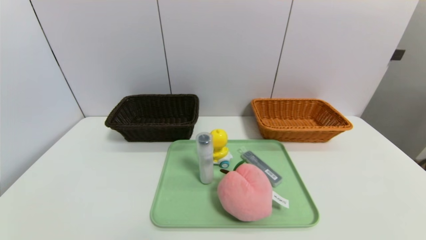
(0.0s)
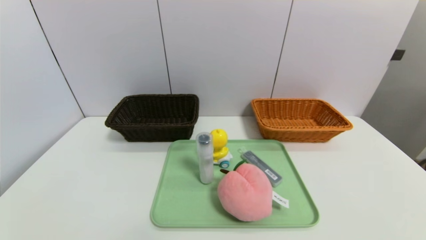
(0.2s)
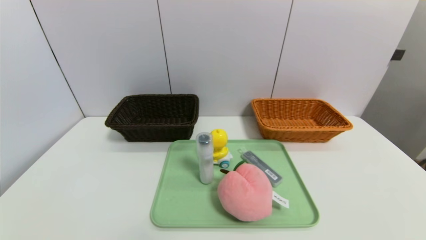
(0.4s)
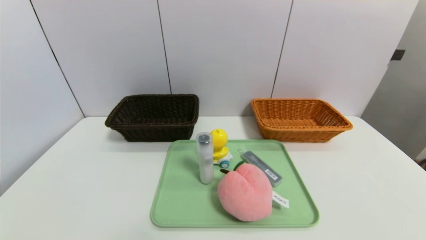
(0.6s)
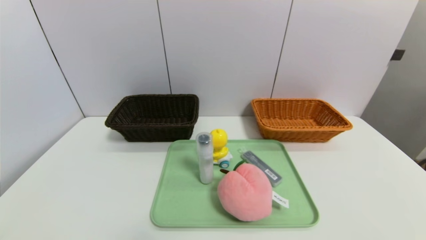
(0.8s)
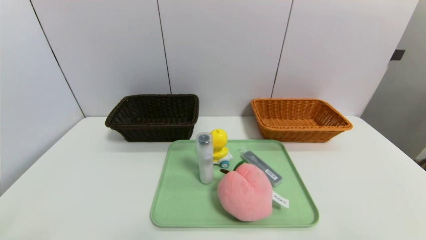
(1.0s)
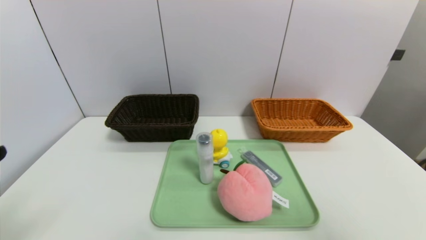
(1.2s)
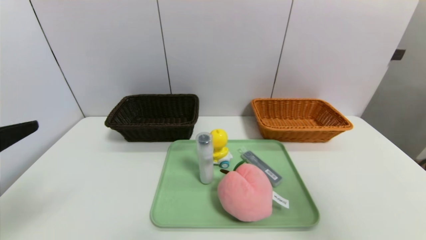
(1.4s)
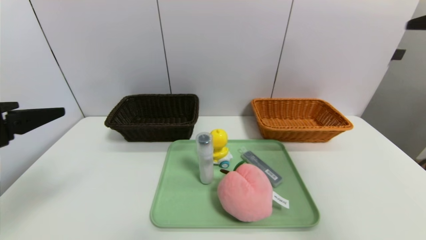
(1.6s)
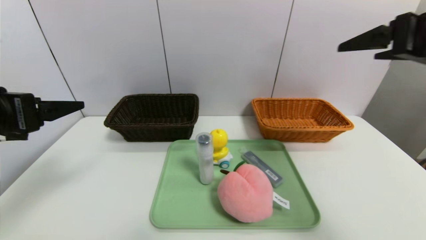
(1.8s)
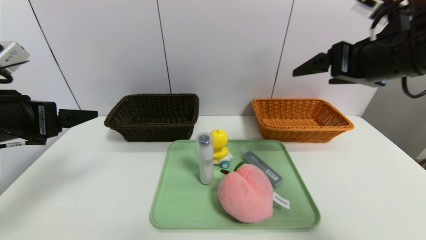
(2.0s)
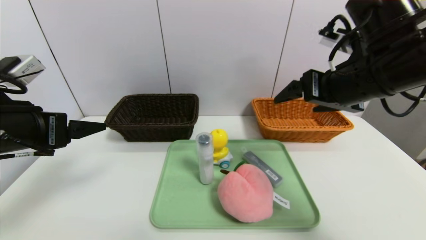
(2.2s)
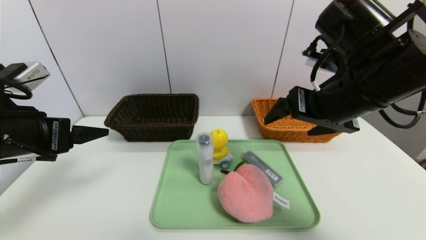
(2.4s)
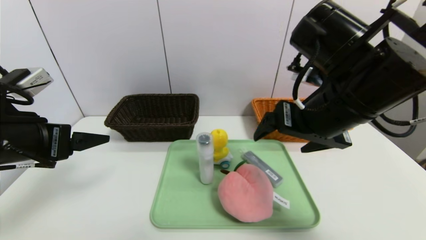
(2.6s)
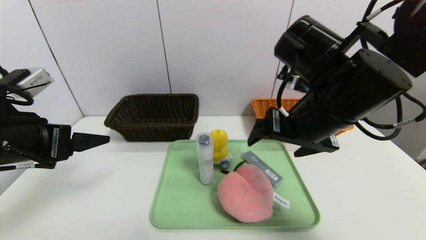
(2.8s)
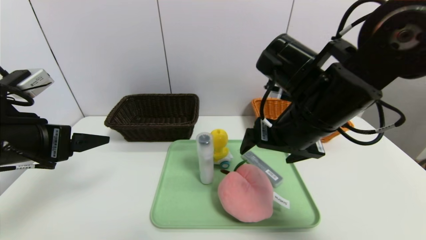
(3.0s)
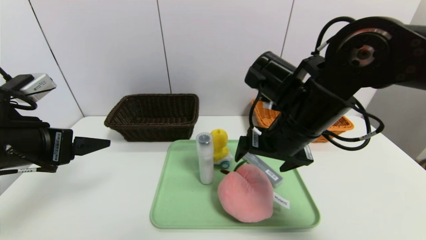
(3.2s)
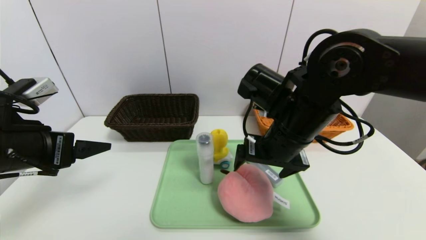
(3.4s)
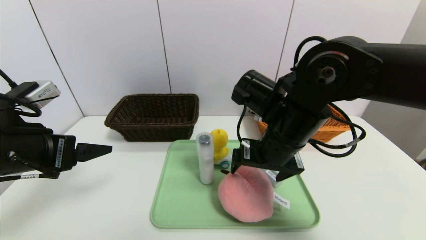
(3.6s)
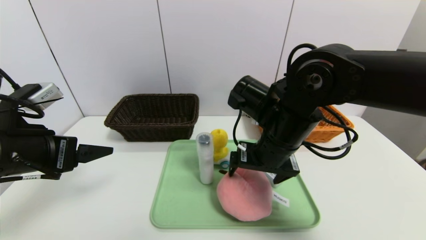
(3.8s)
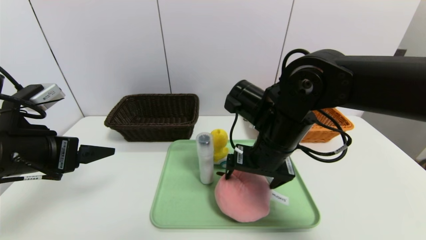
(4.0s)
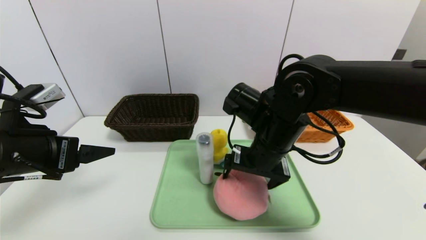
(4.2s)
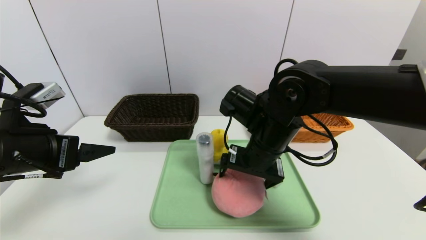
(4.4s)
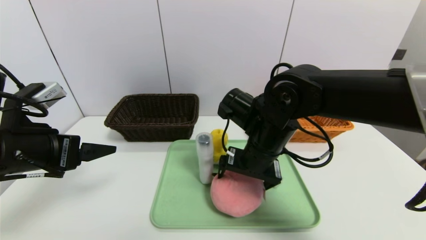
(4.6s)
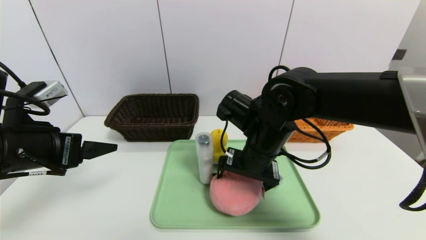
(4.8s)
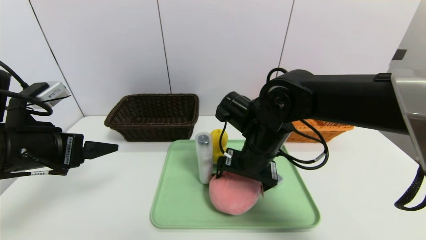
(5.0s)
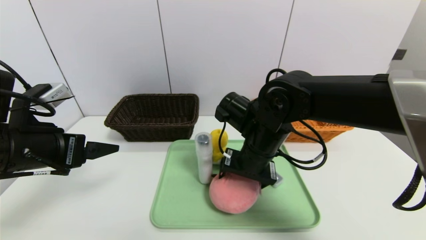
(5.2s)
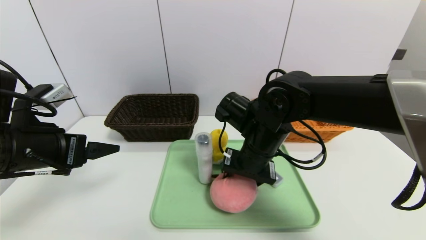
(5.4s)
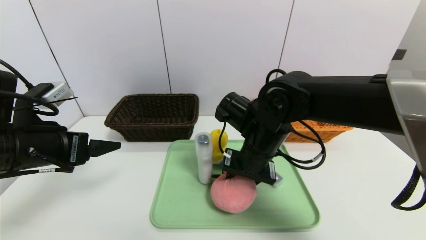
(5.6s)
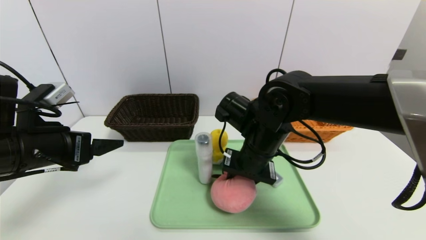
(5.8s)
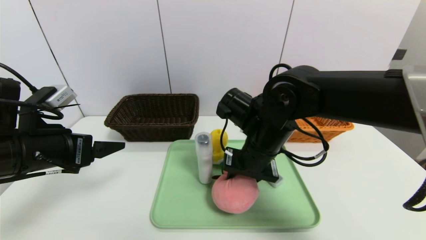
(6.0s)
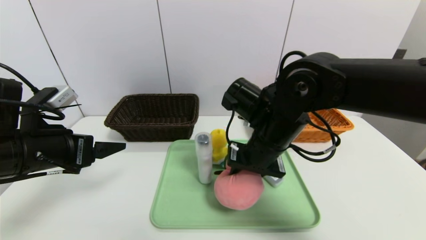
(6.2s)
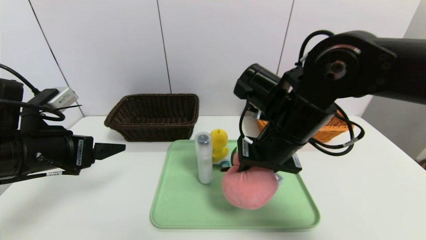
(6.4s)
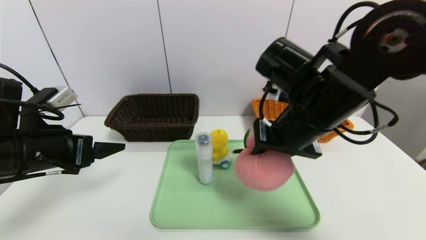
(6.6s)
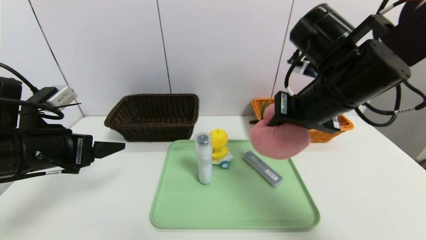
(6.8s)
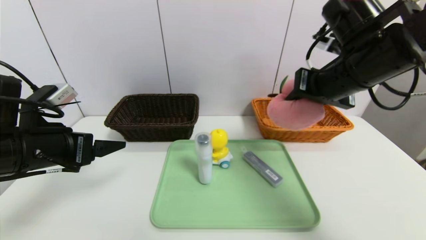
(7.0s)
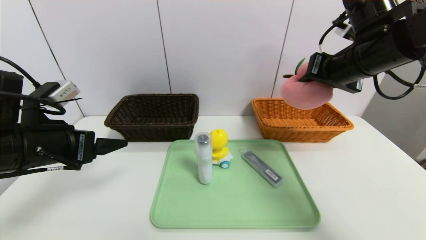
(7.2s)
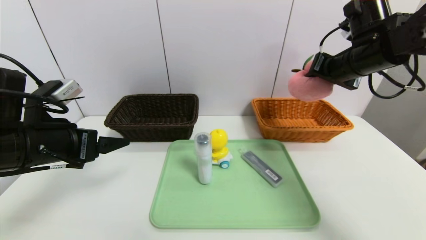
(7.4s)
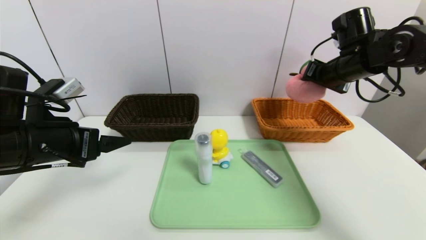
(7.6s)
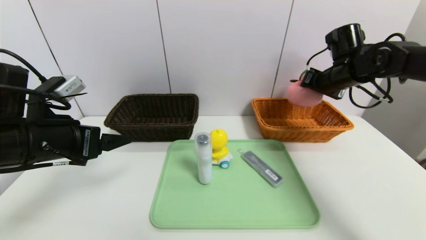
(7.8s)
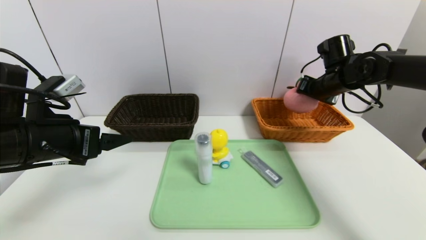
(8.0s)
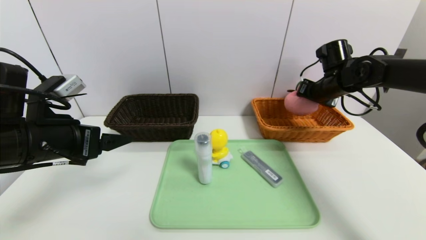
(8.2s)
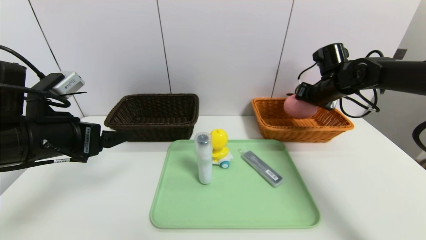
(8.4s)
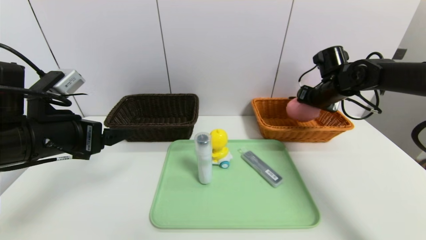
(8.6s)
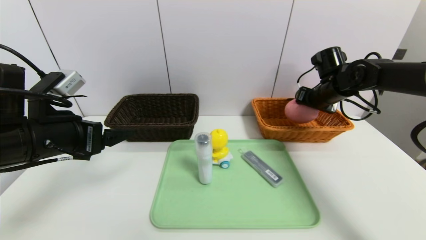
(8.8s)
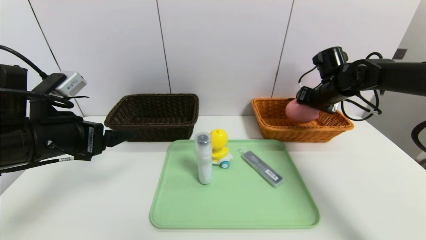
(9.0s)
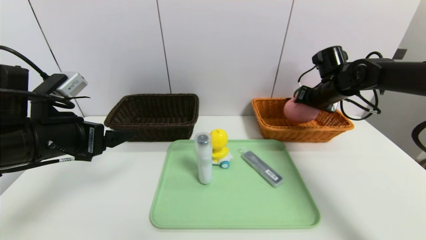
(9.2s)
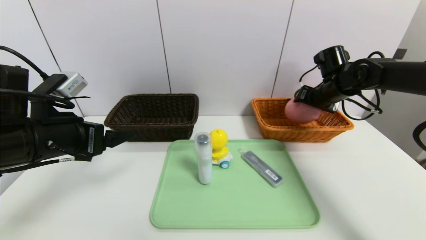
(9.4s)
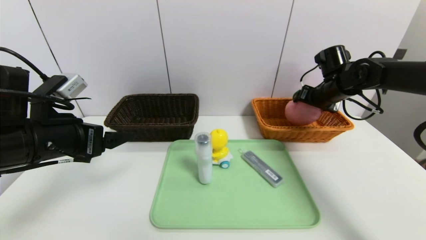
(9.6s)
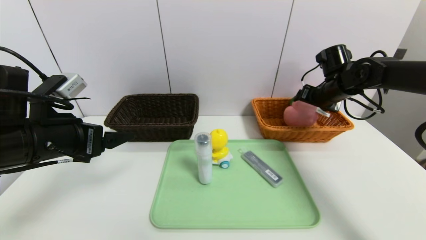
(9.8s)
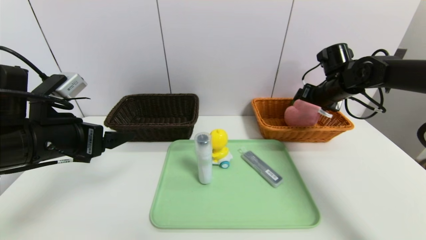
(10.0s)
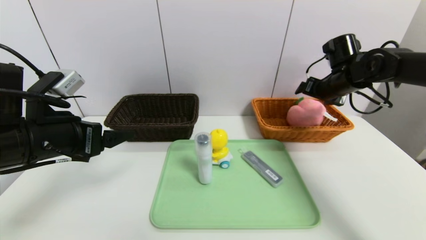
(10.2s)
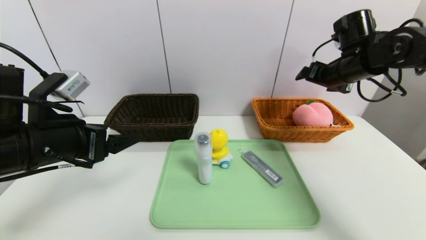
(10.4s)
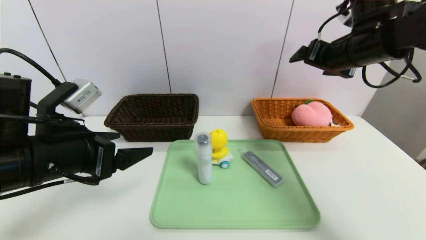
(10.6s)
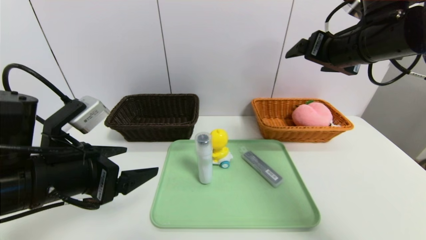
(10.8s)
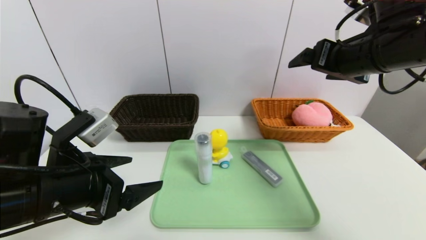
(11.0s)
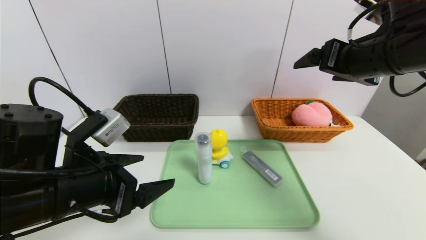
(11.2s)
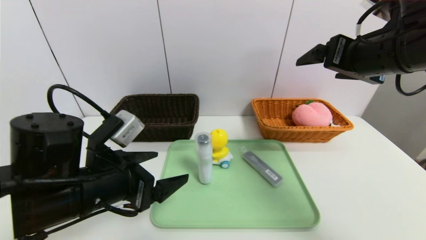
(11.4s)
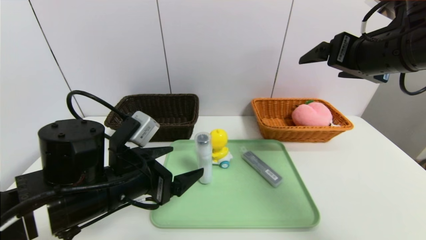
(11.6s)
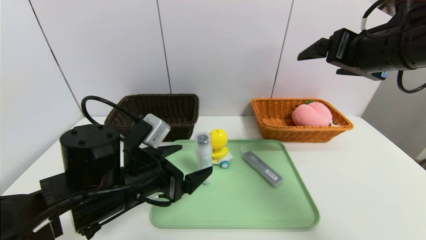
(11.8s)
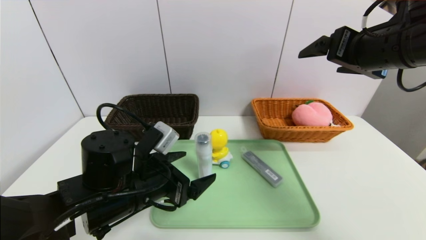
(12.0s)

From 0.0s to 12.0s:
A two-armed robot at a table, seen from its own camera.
Task of the whole recording: place the food in the right basket with the right gripper, and place the non food items in the left basket with the left gripper.
Step, from 0.0s to 10.4s: Grasp the peach doll and put it in the right basket.
From 0.0s to 1.6s: The two grippers go some 30 cm upward and forward.
From 1.6s to 3.0s: The left gripper changes place by some 5 cm, while the right gripper moves to the left, downward and forward, about 25 cm.
From 3.0s to 4.4s: The right gripper moves downward, about 5 cm.
From 4.4s to 6.0s: The right gripper closes its fingers.
From 6.0s to 7.6s: The right gripper shifts some 25 cm to the right, forward and upward.
From 7.6s to 9.0s: The right gripper is displaced downward by approximately 5 cm.
From 9.0s to 10.4s: The right gripper goes approximately 5 cm upward, and opens its fingers.
From 10.4s to 12.0s: The left gripper travels to the right and downward by approximately 15 cm. The right gripper heads backward and upward, covering approximately 15 cm.

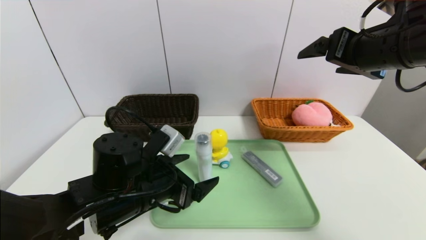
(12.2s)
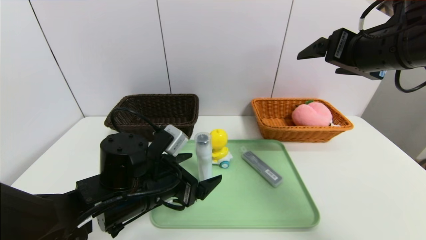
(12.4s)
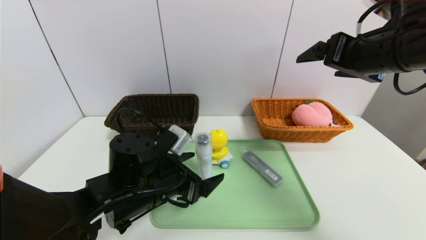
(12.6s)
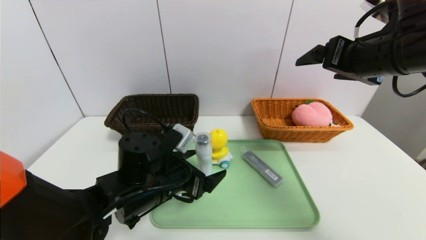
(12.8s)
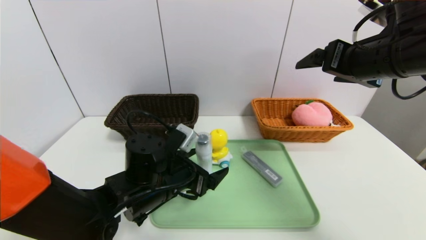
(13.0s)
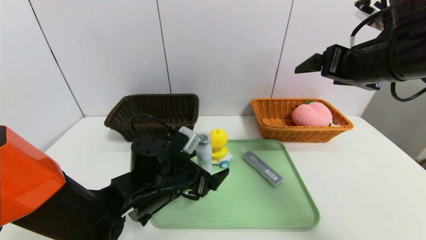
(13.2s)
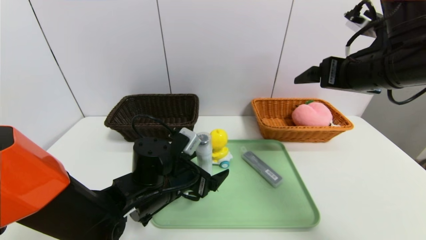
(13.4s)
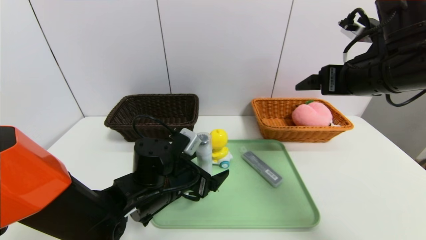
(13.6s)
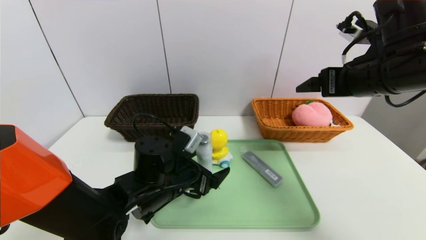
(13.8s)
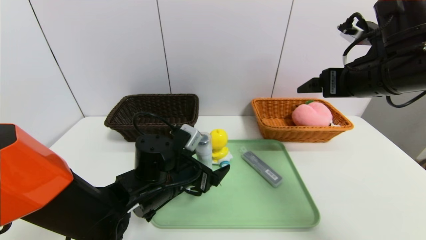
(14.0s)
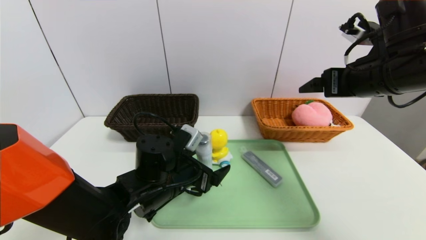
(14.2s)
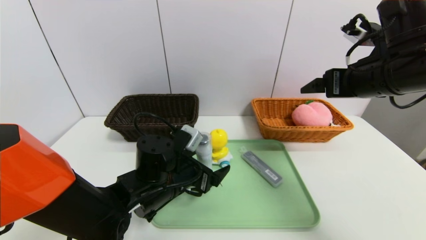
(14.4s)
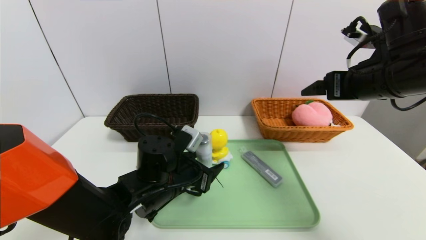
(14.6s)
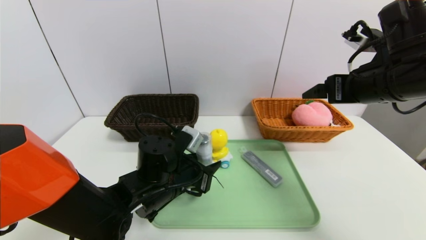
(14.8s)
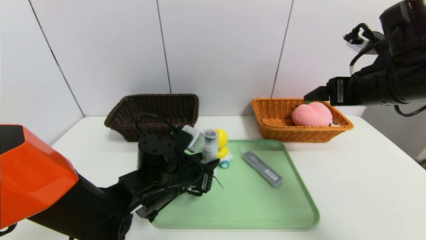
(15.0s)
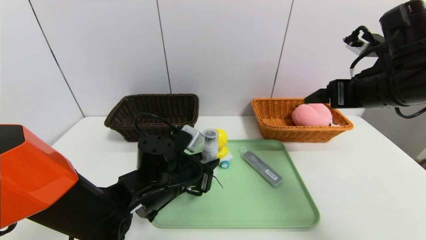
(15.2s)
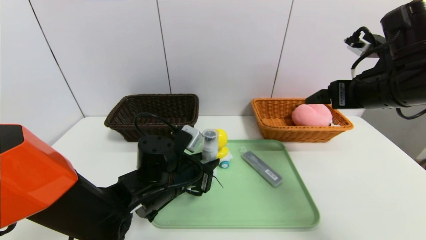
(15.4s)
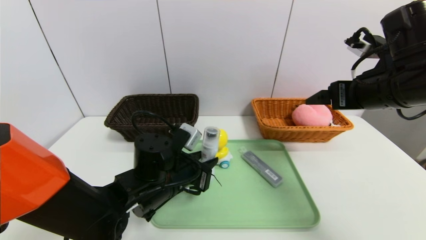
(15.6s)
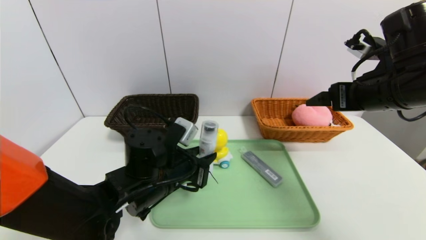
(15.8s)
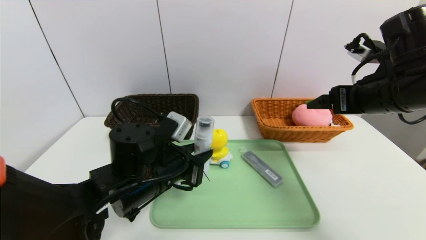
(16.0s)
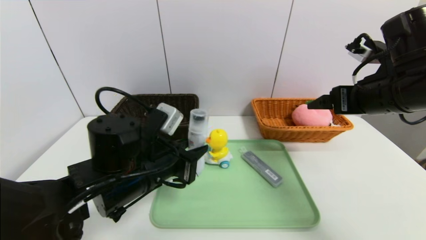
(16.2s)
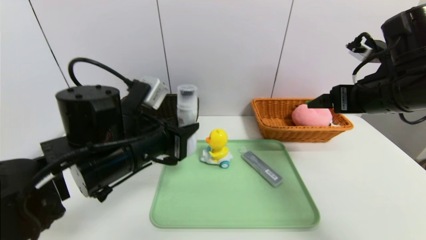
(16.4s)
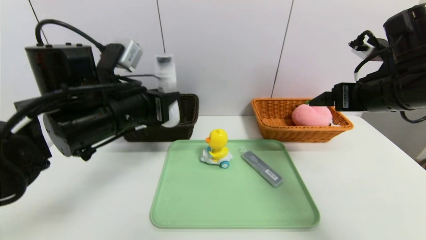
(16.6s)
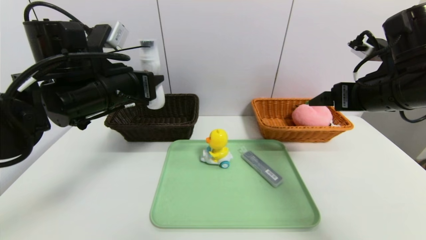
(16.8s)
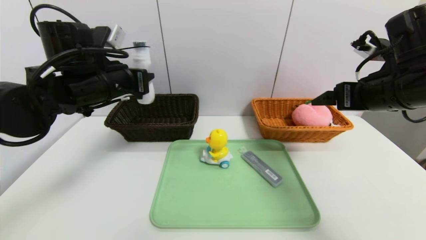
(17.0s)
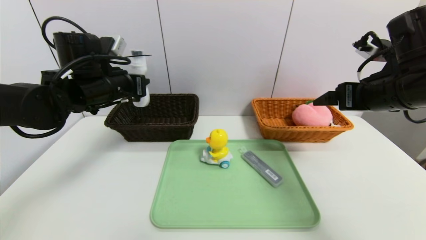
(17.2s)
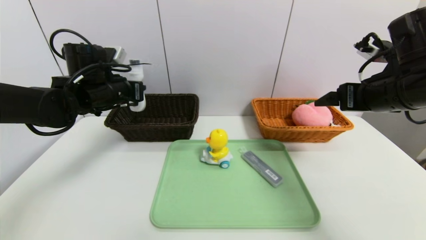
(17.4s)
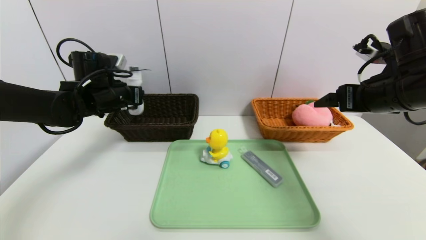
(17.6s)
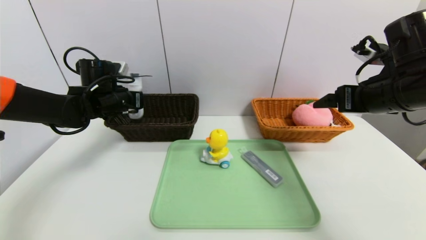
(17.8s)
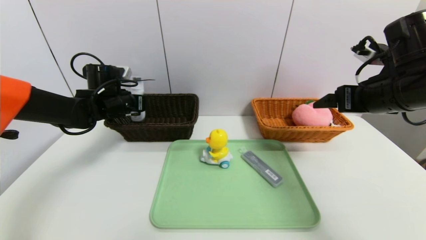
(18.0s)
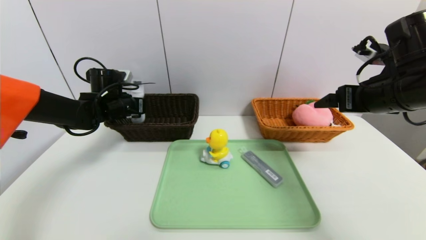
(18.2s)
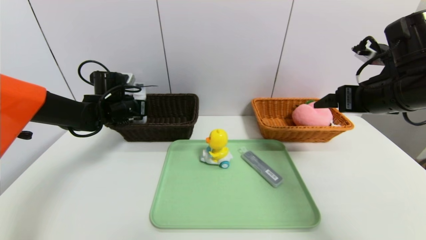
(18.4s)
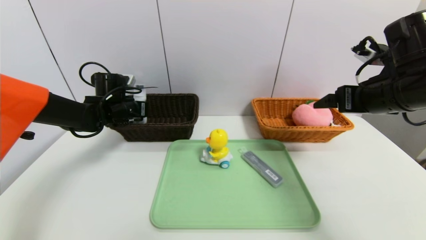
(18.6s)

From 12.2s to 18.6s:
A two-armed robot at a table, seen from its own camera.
Task of the whole recording: place the food in the right basket with the right gripper, and place the non food items in the left basket with the left gripper.
From 12.2s to 13.8s: The left gripper ends up approximately 5 cm from where it was.
From 13.8s to 15.4s: The left gripper closes.
From 15.4s to 17.0s: The left gripper moves upward and to the left, about 20 cm.
From 17.0s to 18.6s: The left gripper shifts approximately 15 cm forward, downward and to the left.
